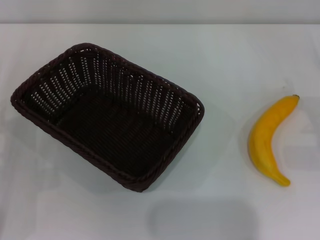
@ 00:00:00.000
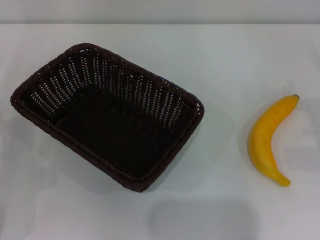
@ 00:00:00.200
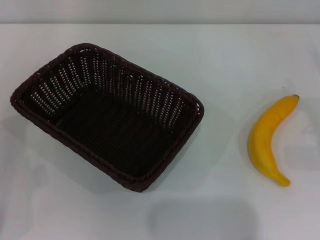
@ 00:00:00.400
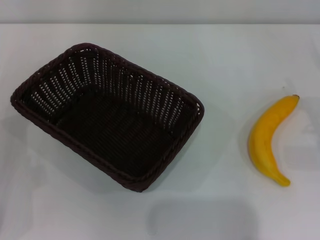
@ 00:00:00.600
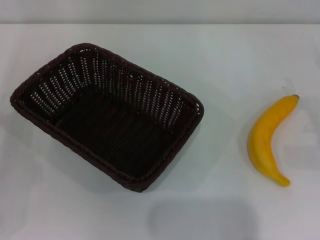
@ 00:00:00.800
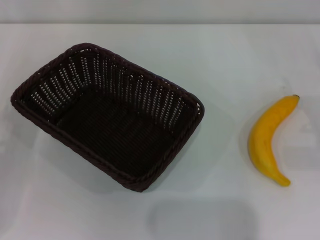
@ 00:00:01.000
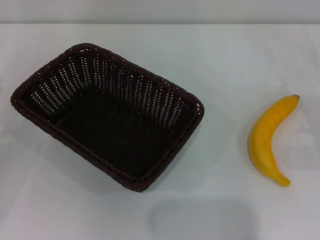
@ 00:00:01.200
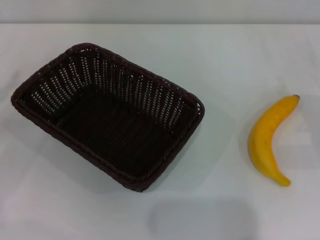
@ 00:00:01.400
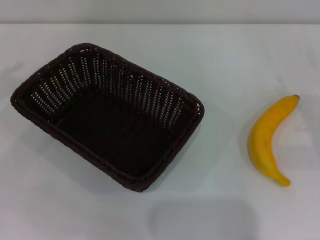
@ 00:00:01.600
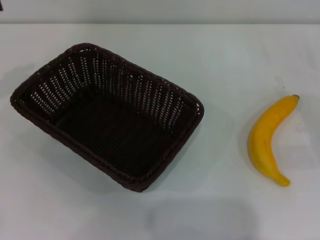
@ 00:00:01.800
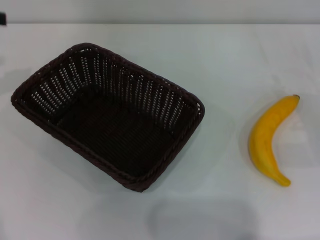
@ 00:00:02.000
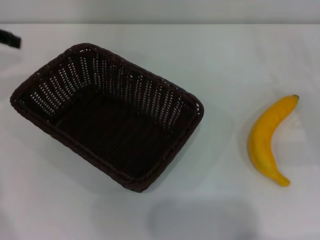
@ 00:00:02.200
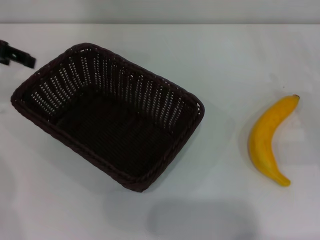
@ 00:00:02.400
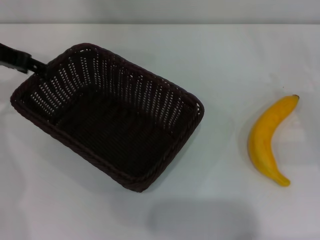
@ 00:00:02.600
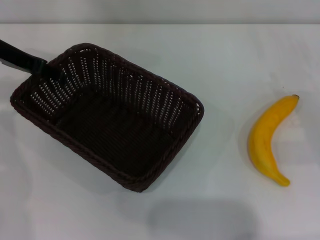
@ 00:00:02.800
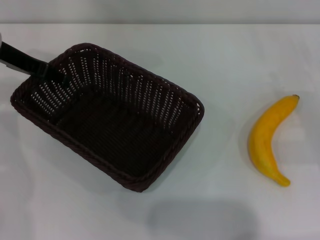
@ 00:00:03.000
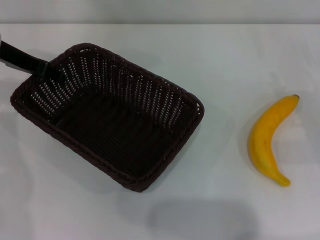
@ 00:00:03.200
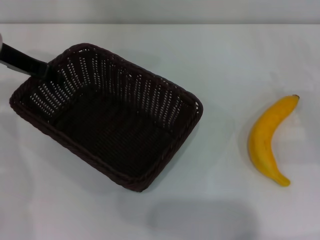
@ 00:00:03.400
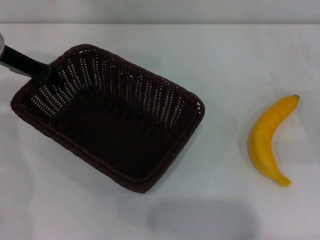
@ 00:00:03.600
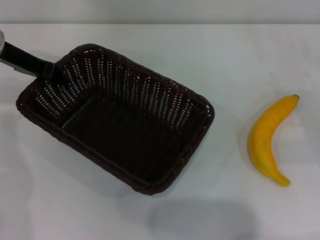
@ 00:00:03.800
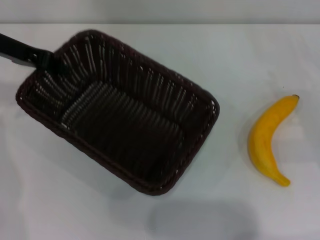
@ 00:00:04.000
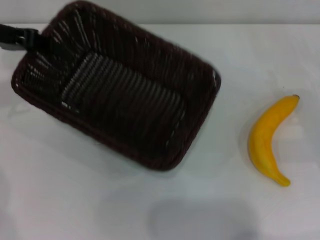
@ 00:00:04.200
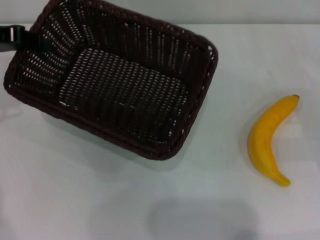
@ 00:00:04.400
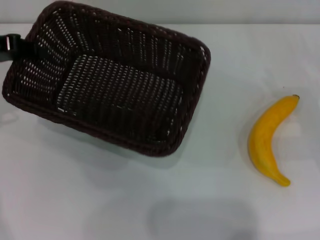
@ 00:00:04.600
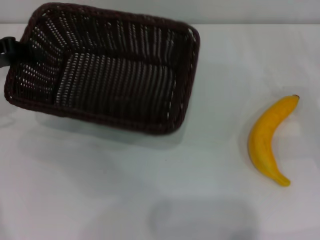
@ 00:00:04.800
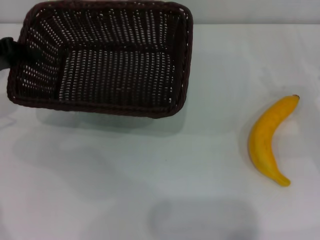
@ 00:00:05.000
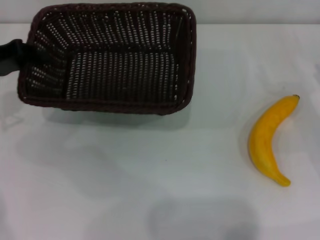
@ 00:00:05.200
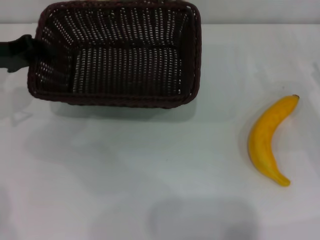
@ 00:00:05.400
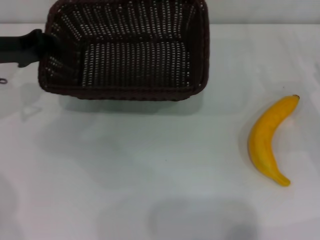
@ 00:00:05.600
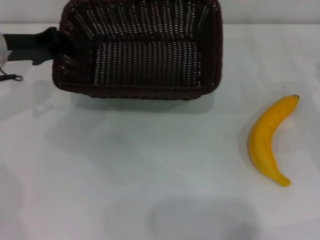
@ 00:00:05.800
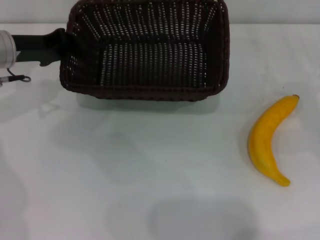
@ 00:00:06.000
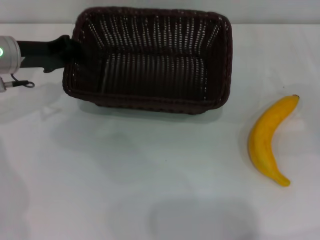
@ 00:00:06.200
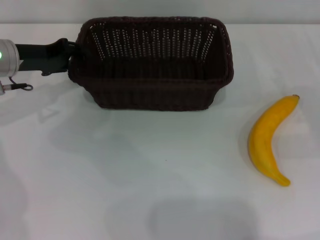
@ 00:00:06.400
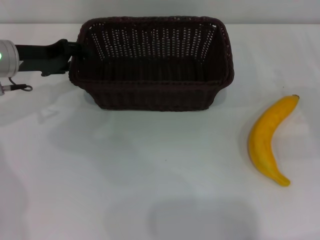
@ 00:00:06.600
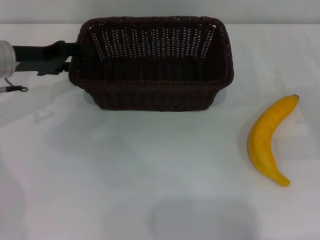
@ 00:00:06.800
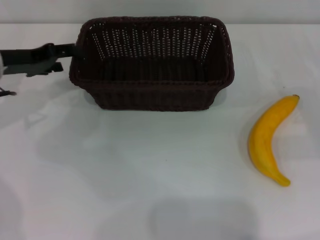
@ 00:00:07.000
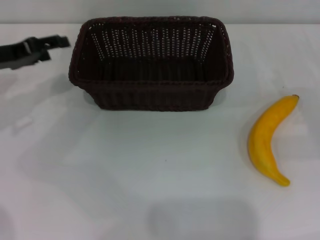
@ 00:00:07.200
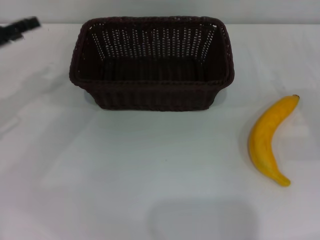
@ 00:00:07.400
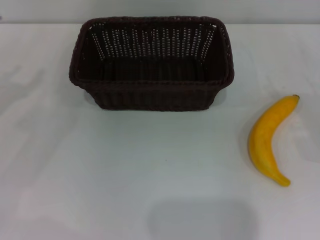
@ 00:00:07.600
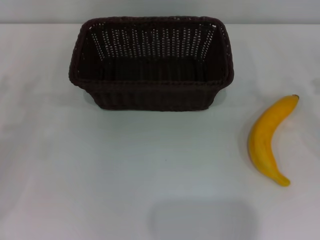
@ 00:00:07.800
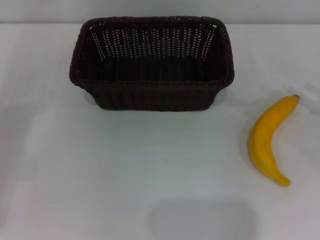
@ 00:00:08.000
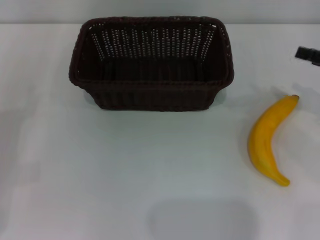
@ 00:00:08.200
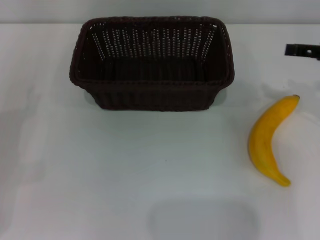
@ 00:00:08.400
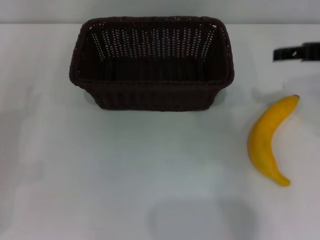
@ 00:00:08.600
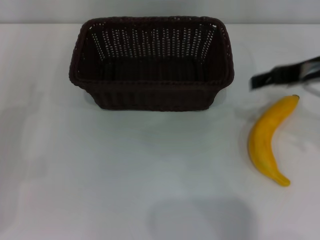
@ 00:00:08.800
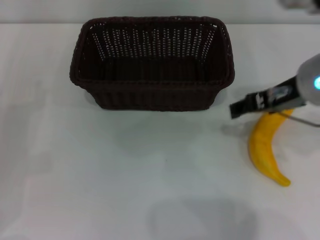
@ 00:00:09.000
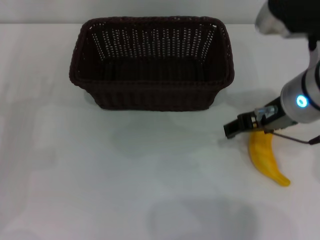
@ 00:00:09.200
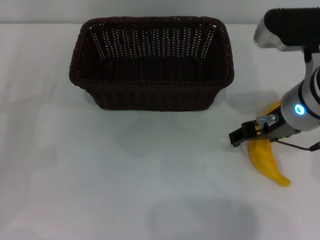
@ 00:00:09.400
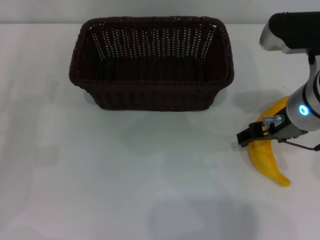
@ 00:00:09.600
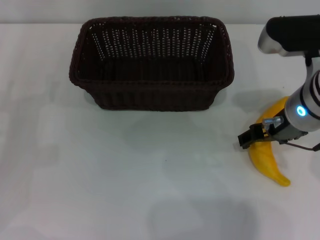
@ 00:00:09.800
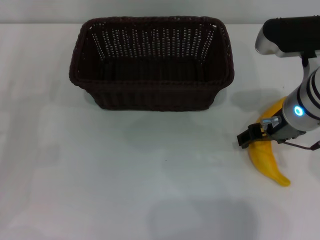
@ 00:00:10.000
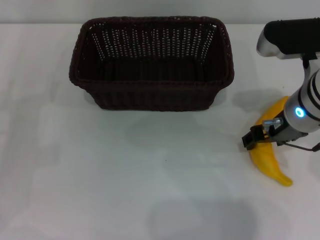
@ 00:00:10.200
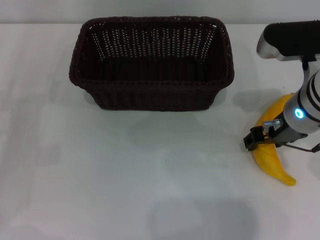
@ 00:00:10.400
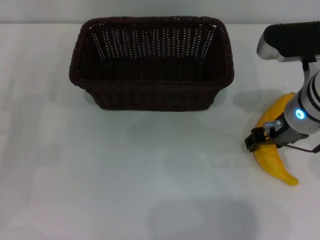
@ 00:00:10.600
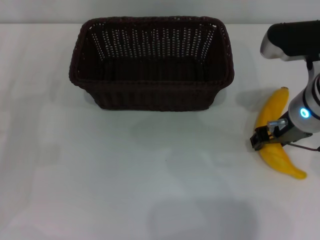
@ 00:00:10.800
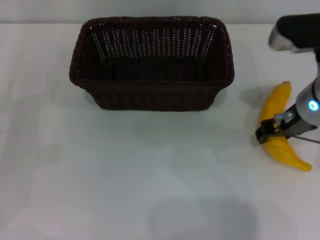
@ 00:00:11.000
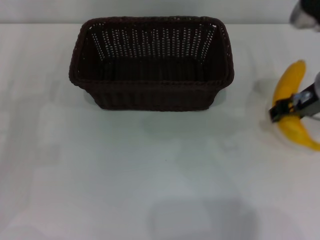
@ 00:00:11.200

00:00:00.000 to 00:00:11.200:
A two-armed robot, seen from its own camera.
Step, 00:00:00.000 to 00:00:04.200: Pick up the dark basket with the left gripper.
Step, 00:00:04.400 to 00:00:07.200: Place the dark basket in the center of view with the left gripper.
Step, 00:00:07.400 to 00:00:11.000: Pick up the banana with the right gripper.
00:00:01.600 to 00:00:03.200: The left gripper goes roughly 15 cm to the right and forward.
00:00:03.200 to 00:00:04.800: The left gripper is displaced to the left by roughly 5 cm, and closes.
00:00:04.800 to 00:00:06.400: The left gripper shifts roughly 5 cm to the right.
00:00:06.400 to 00:00:08.000: The left gripper heads backward and to the left, covering some 20 cm, and opens its fingers.
00:00:08.000 to 00:00:09.600: The right gripper is displaced to the left by some 20 cm.
00:00:09.600 to 00:00:11.200: The right gripper closes.

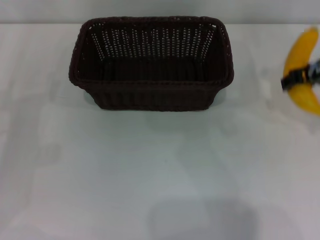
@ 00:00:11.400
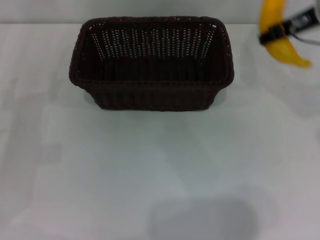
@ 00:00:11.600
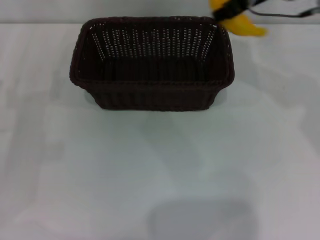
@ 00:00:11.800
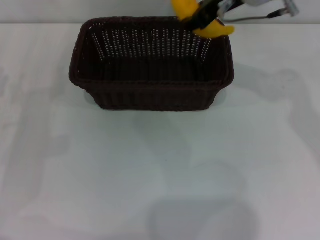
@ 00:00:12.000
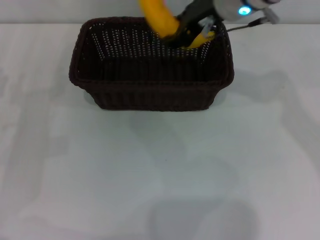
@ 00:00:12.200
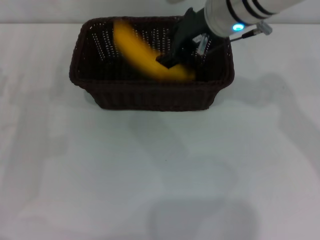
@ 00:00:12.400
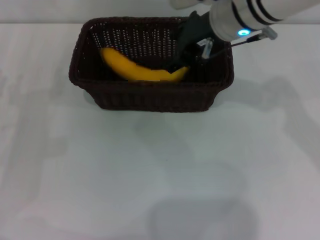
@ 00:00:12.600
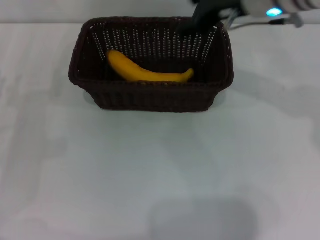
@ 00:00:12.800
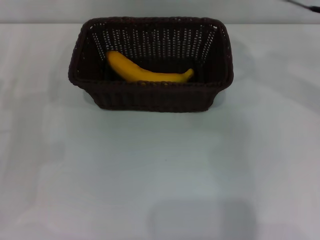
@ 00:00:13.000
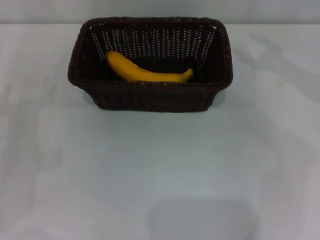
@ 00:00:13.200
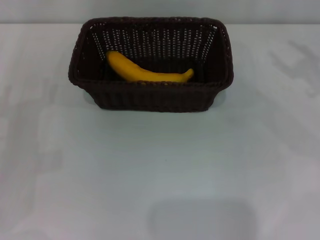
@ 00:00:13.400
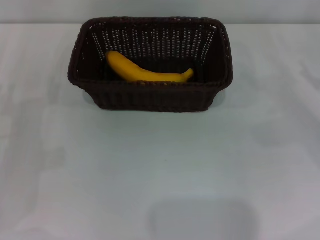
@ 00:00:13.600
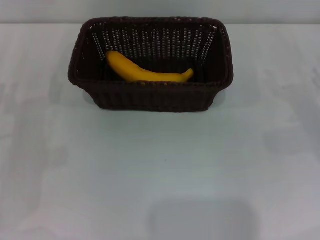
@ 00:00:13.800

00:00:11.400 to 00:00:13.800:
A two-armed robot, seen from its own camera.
Step, 00:00:11.400 to 00:00:12.600: Place the banana into the dark basket with the right gripper.
00:00:11.400 to 00:00:12.600: The right gripper shifts roughly 15 cm to the left.
00:00:12.600 to 00:00:13.800: The right gripper is displaced to the right and downward by some 30 cm, and opens.
